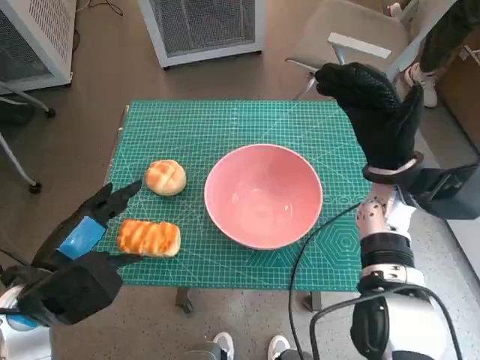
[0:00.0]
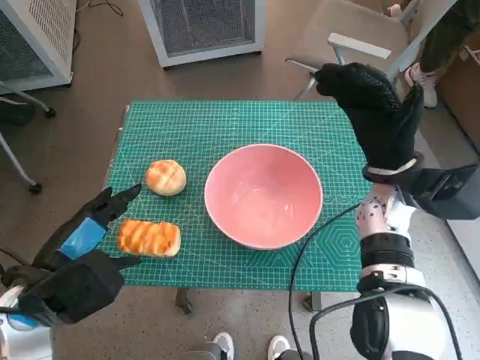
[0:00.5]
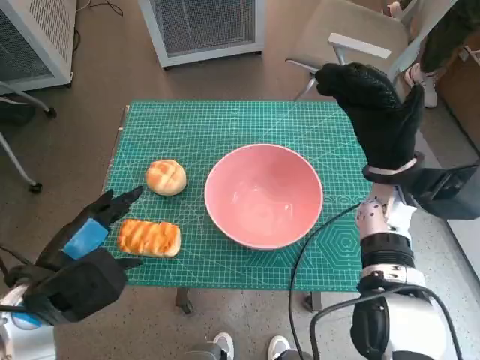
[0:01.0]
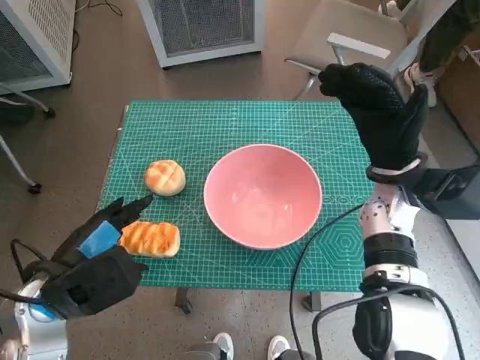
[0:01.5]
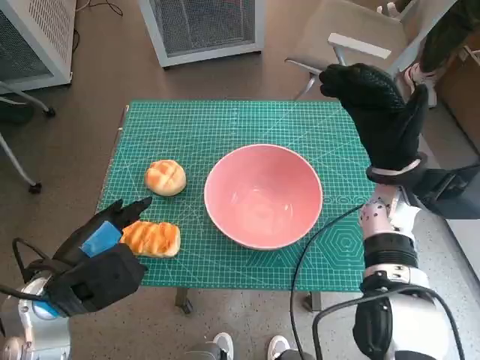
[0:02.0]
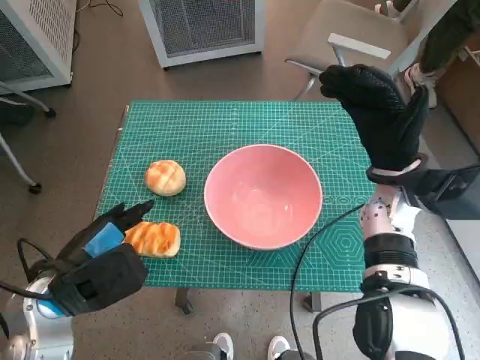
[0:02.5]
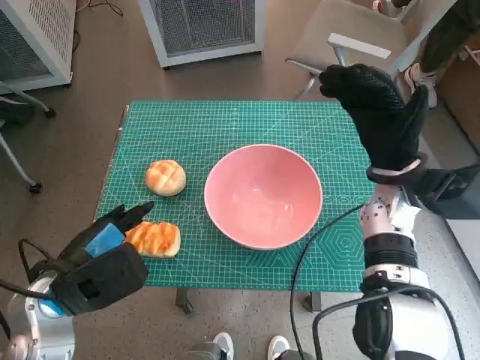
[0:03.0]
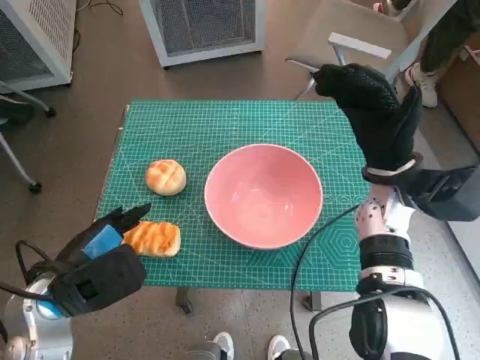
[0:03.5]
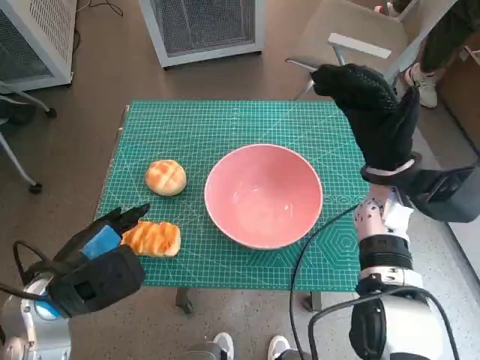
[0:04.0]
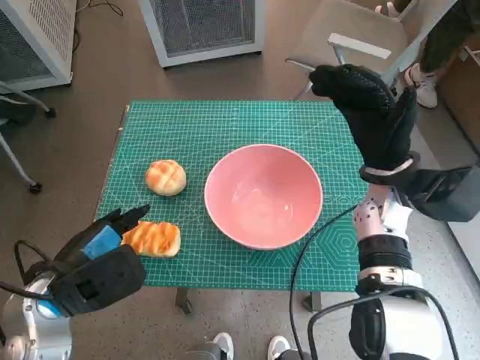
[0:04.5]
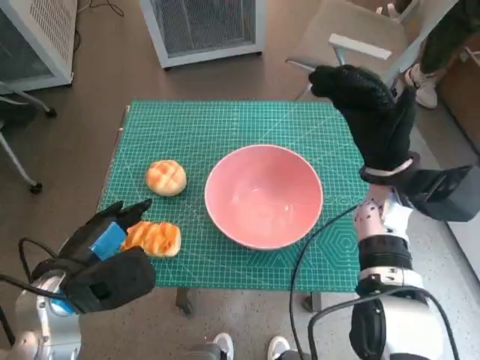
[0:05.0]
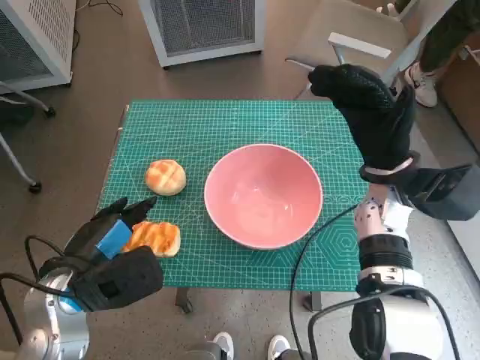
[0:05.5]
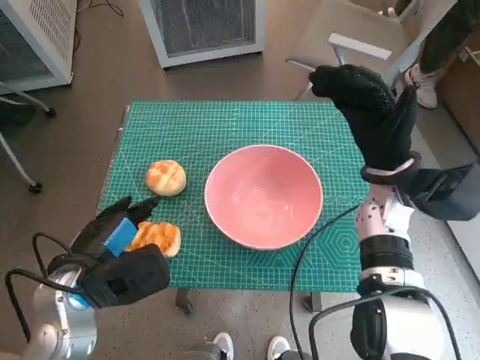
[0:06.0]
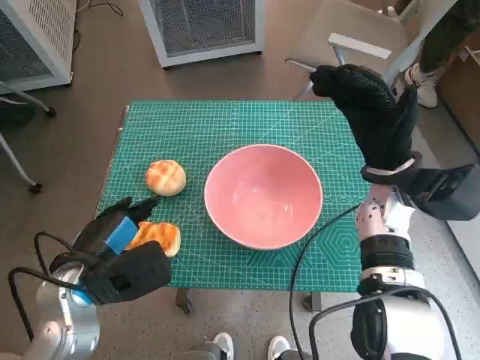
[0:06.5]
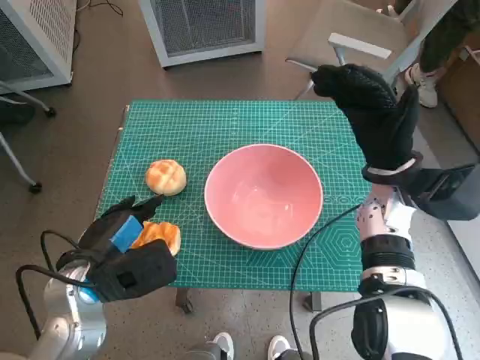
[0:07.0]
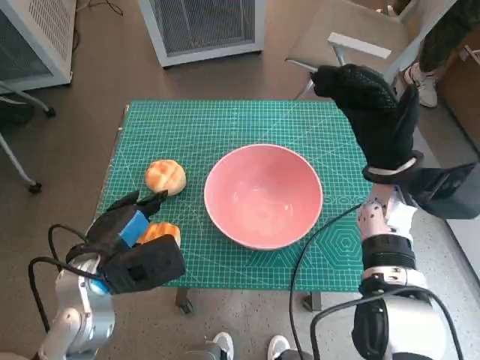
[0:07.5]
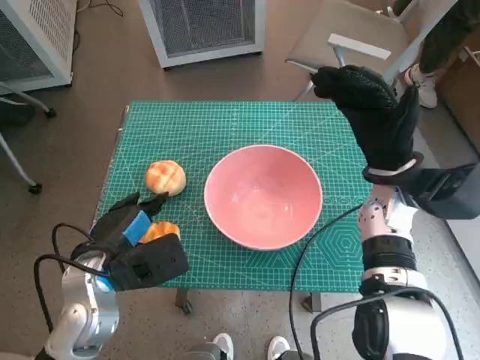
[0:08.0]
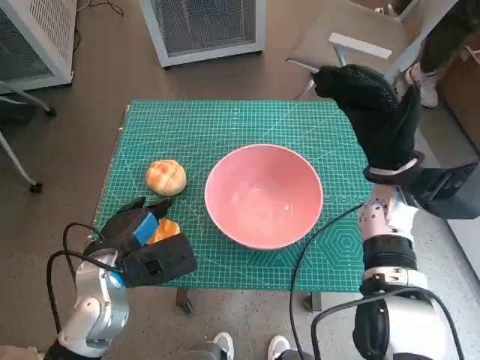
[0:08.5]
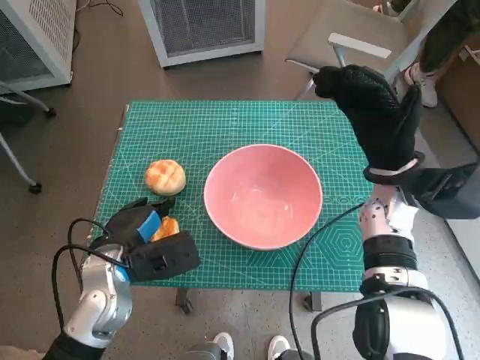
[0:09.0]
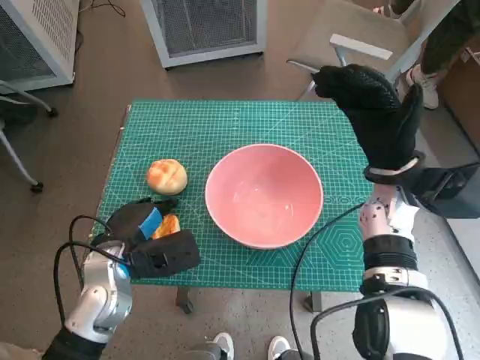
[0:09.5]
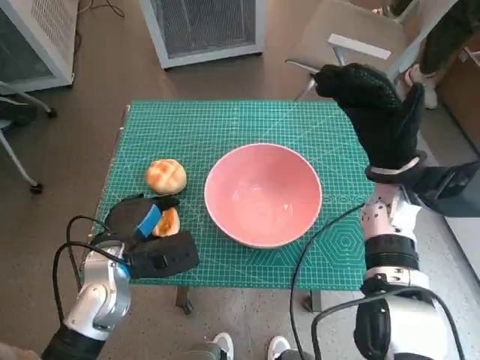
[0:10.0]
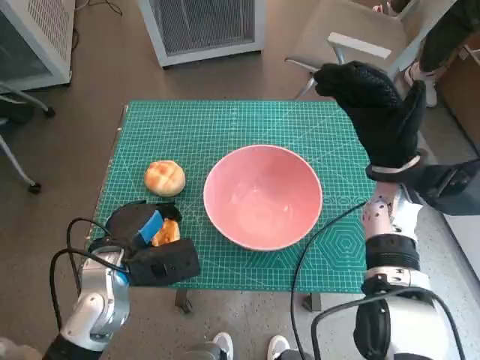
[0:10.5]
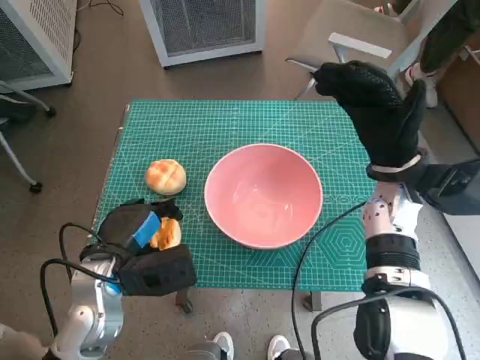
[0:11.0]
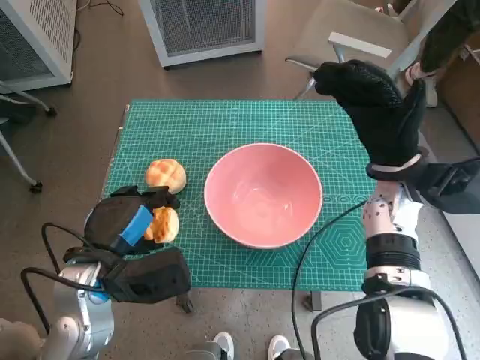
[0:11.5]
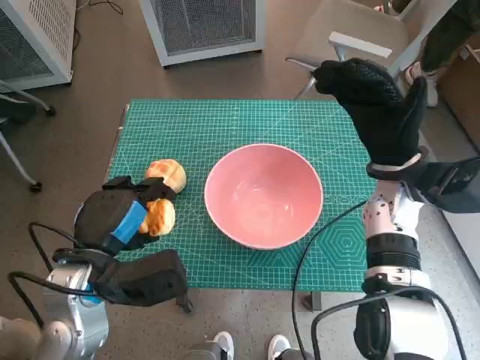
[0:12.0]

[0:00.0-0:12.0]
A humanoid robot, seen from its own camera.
Step, 0:00.0 to 0:10.0: Grasp the long bread with left hand.
0:00.0 to 0:02.0: The hands make only small movements.
0:02.0 to 0:04.0: Both hands stay put.
0:04.0 to 0:08.0: The hands move only a little.
0:08.0 to 0:10.0: There are only small adjustments of the hands.
0:10.0 to 0:12.0: The left hand is displaced upward by some 5 cm.

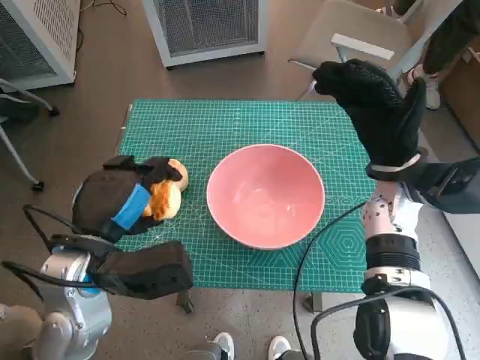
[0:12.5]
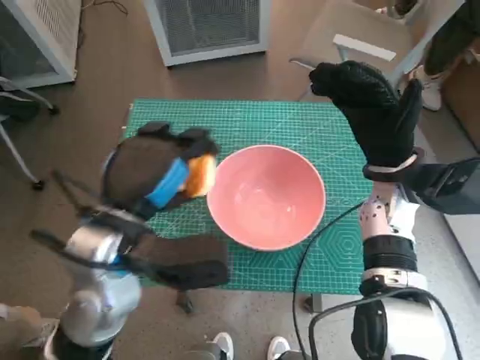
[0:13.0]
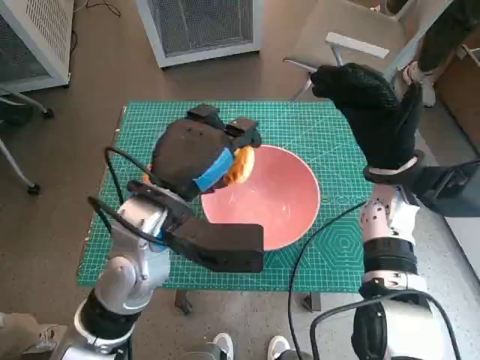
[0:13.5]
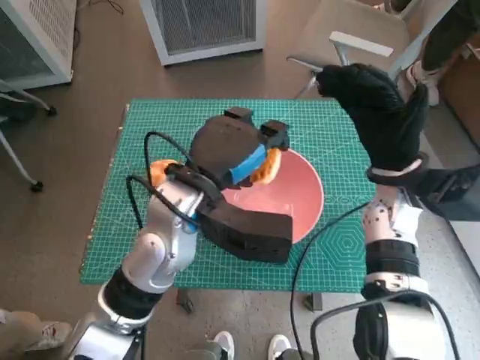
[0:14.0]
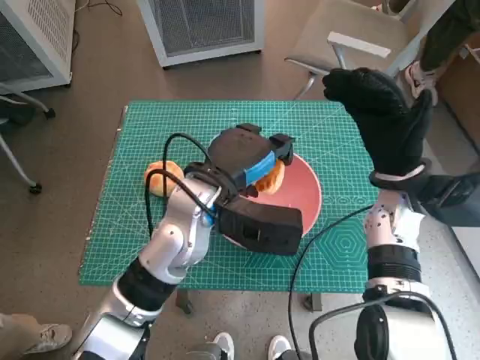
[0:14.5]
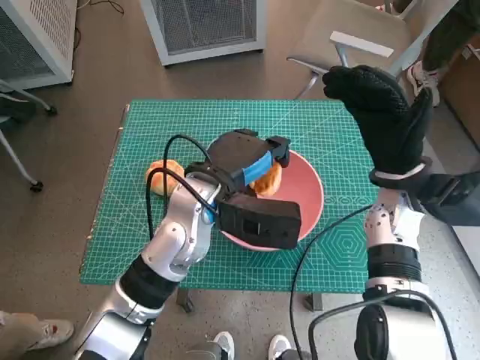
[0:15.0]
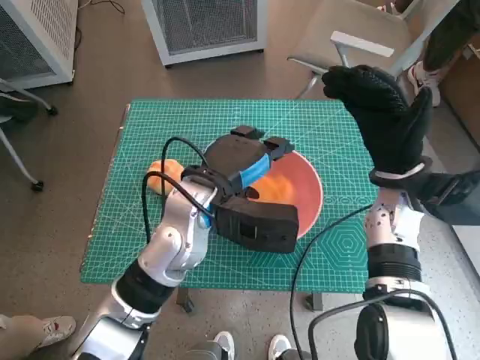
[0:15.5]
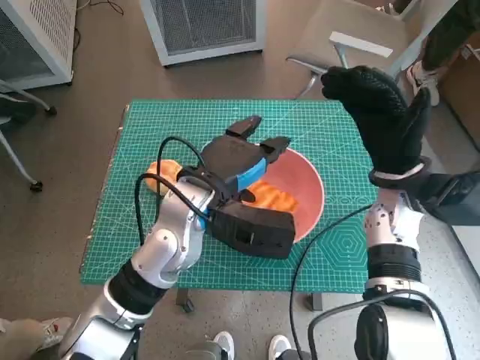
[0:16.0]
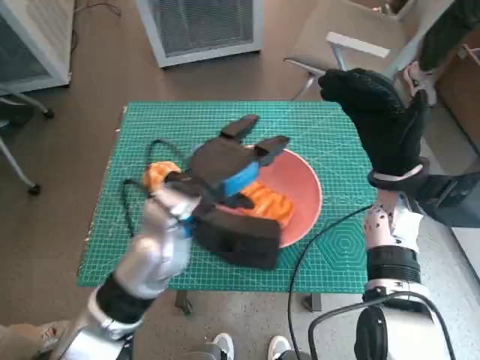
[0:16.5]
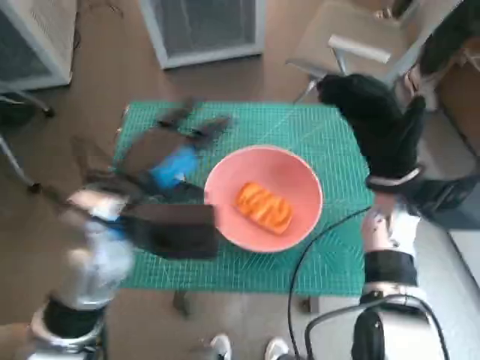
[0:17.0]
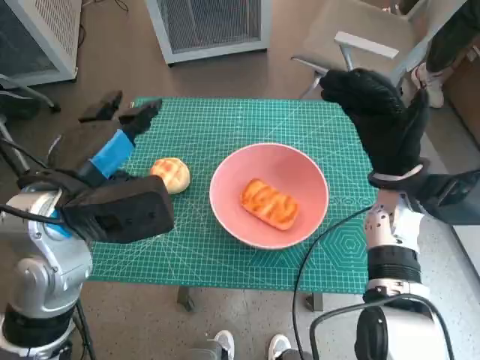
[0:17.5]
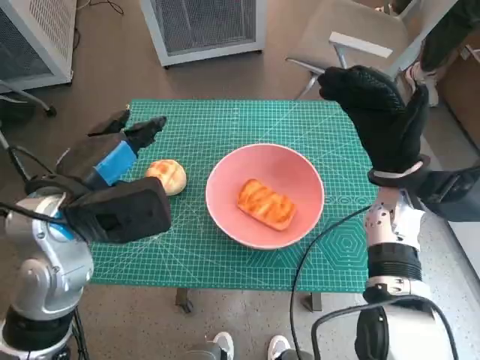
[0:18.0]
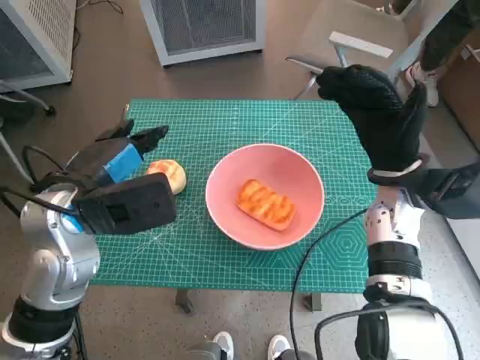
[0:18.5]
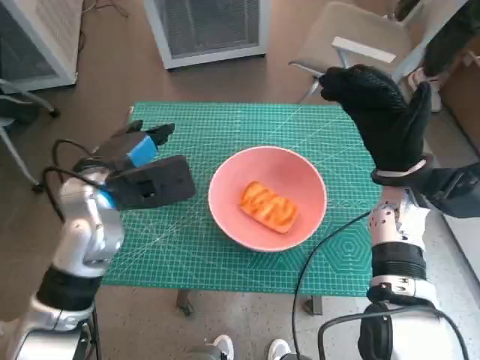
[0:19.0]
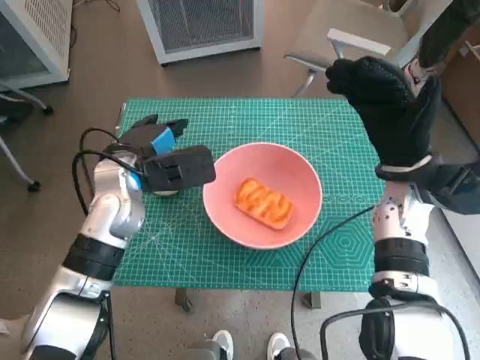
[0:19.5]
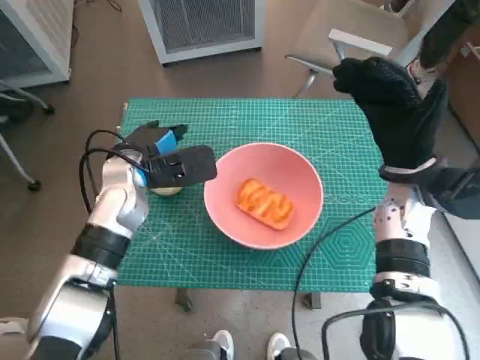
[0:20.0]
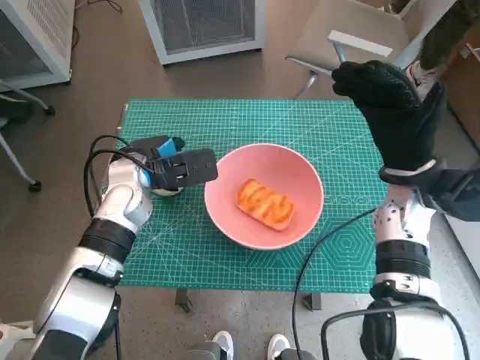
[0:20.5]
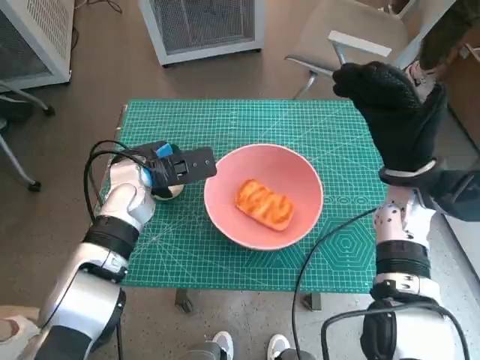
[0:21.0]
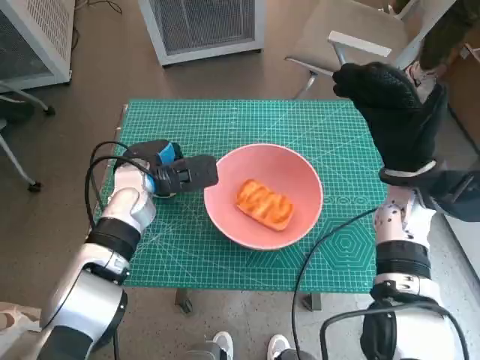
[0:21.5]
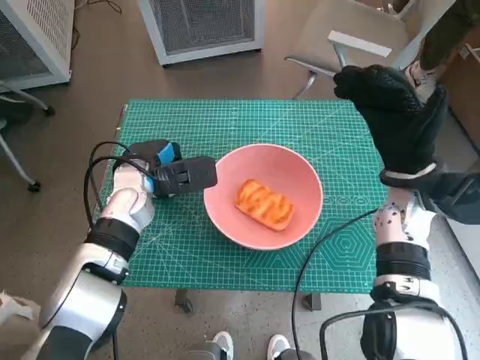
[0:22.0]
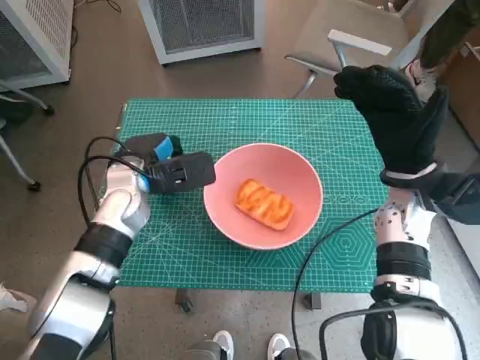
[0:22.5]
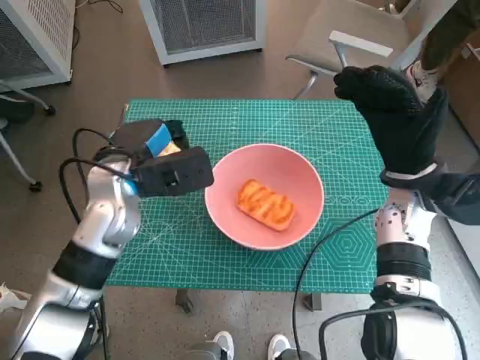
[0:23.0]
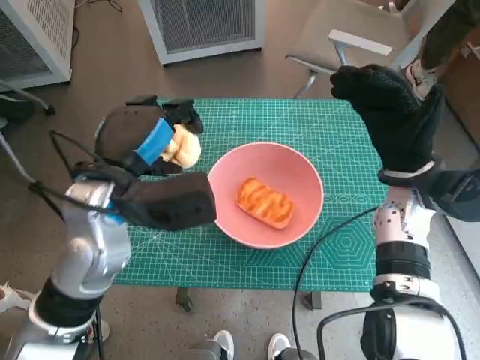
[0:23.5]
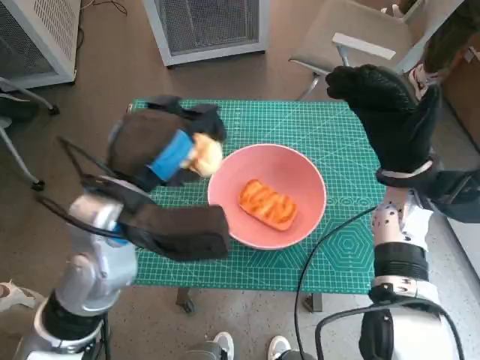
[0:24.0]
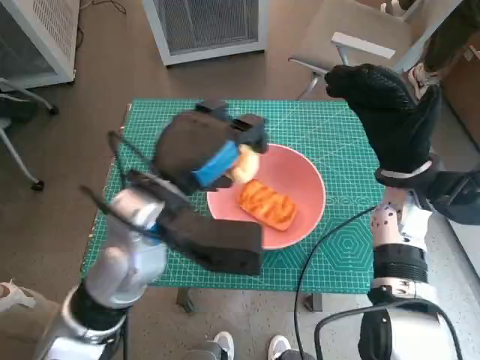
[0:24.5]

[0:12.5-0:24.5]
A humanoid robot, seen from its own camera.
Step, 0:12.5 to 0:16.0: Place the long bread in pink bowl with left hand.
Step, 0:16.5 to 0:22.0: Grasp the round bread with left hand.
0:12.5 to 0:14.5: The left hand moves to the right and forward, about 15 cm.
0:14.5 to 0:16.5: The hands move only a little.
0:16.5 to 0:18.5: The left hand shifts some 10 cm to the left.
0:18.5 to 0:20.5: The left hand moves forward and downward, approximately 15 cm.
0:20.5 to 0:22.5: The hands make only small movements.
0:22.5 to 0:24.5: The left hand heads backward, upward and to the right, covering some 15 cm.

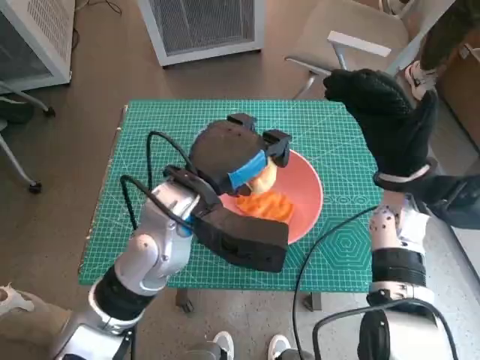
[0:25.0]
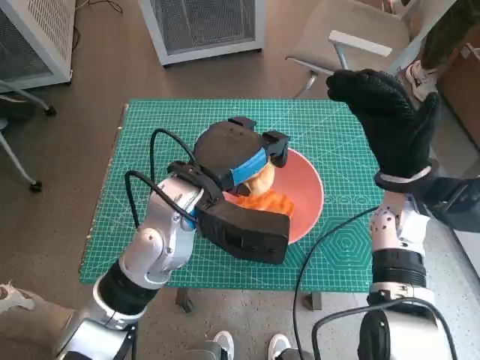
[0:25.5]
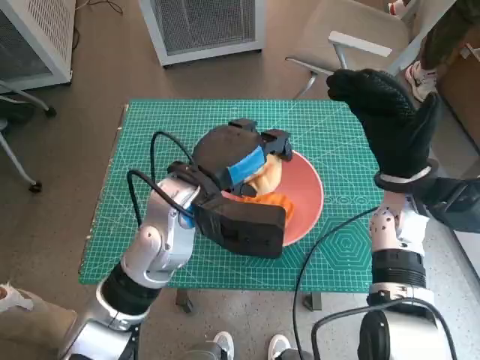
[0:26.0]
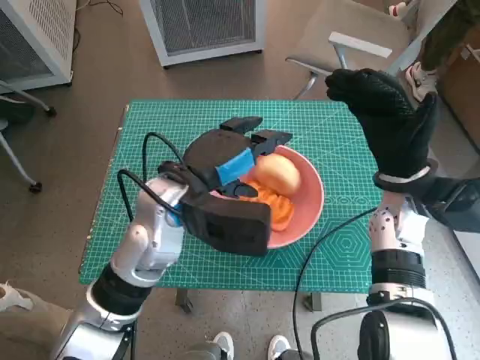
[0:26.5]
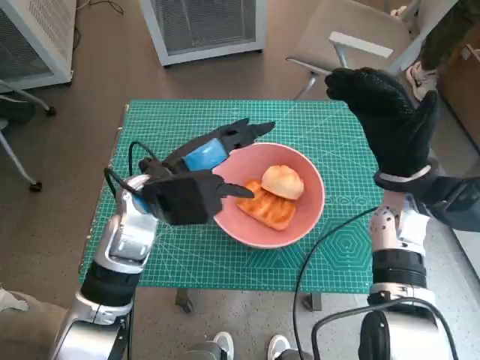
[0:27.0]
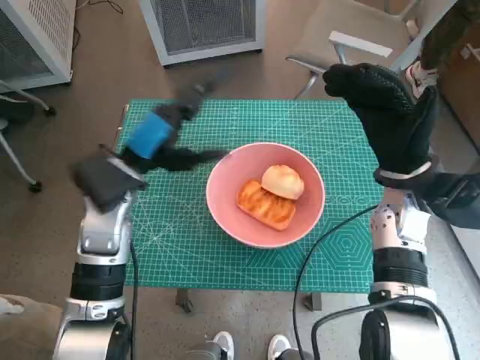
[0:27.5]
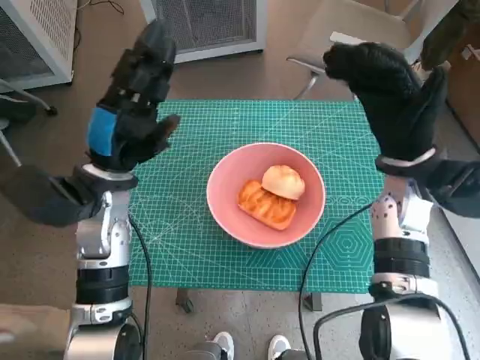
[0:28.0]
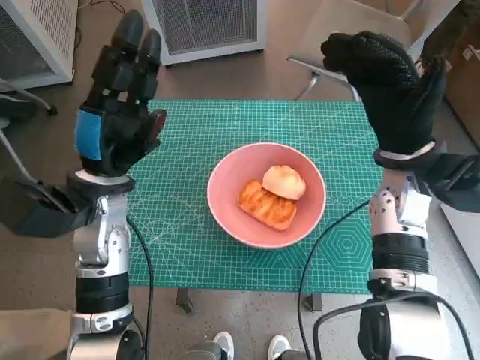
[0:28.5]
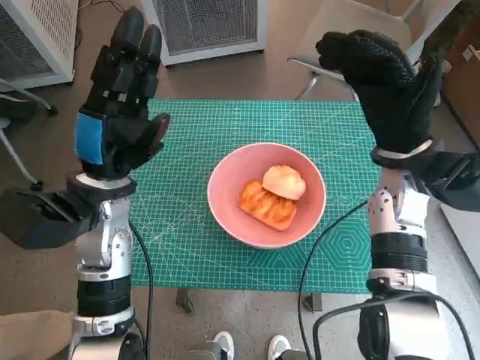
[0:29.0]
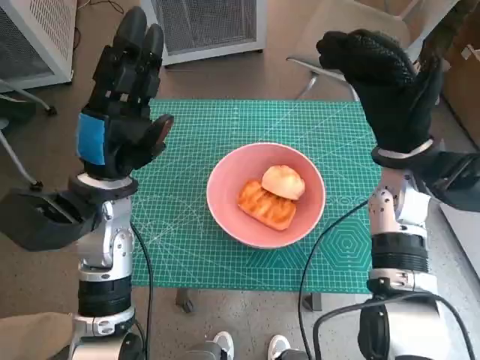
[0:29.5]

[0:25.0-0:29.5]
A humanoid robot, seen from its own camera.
0:25.0 to 0:27.0: The left hand goes some 5 cm to the left.
0:27.0 to 0:29.5: The left hand moves approximately 5 cm.
